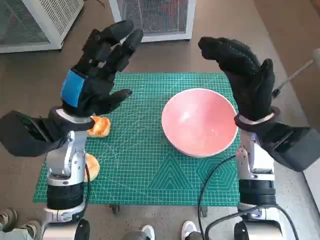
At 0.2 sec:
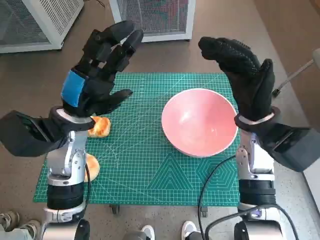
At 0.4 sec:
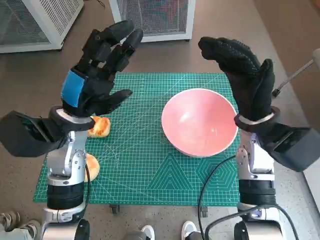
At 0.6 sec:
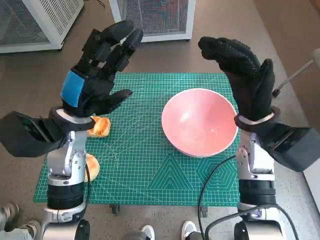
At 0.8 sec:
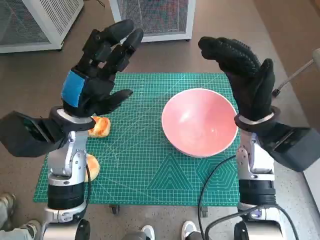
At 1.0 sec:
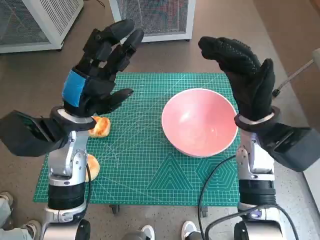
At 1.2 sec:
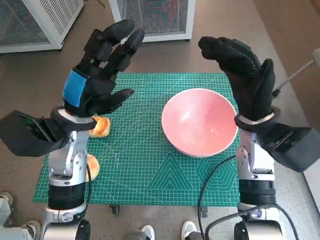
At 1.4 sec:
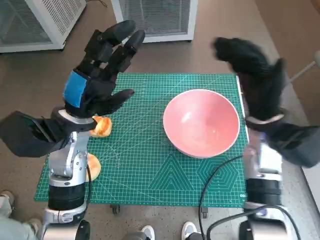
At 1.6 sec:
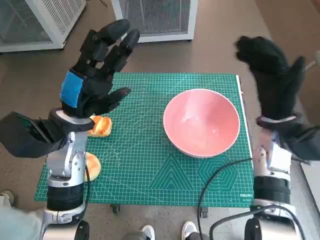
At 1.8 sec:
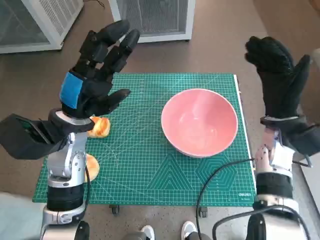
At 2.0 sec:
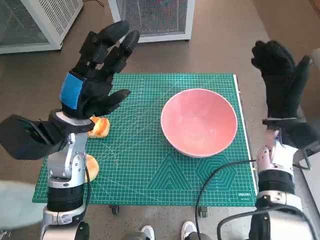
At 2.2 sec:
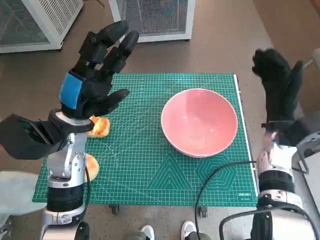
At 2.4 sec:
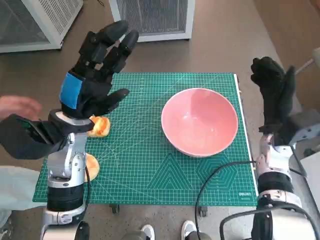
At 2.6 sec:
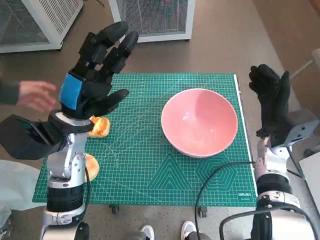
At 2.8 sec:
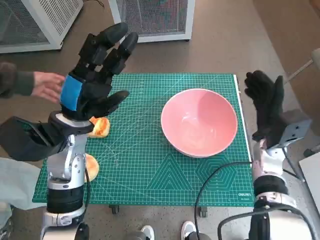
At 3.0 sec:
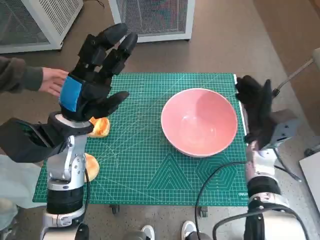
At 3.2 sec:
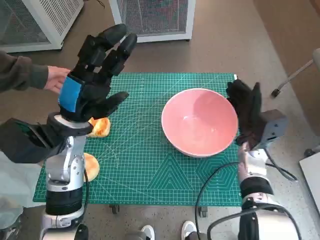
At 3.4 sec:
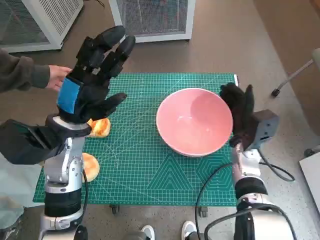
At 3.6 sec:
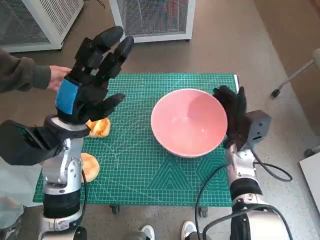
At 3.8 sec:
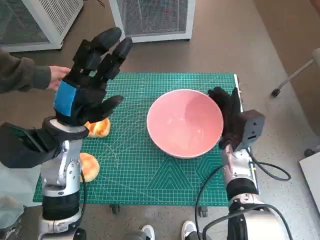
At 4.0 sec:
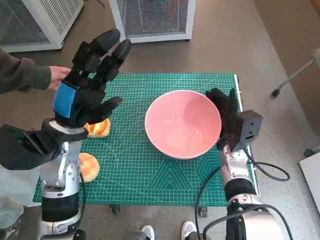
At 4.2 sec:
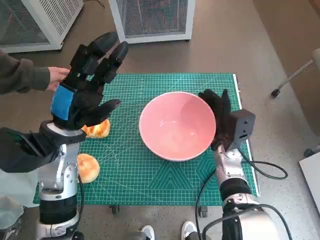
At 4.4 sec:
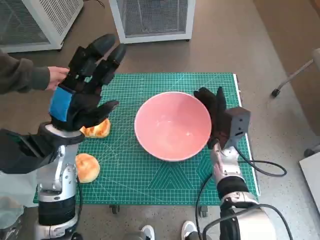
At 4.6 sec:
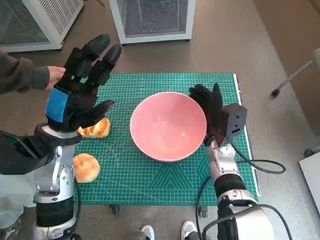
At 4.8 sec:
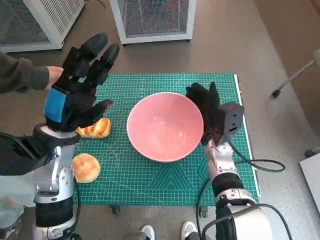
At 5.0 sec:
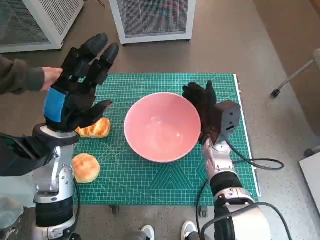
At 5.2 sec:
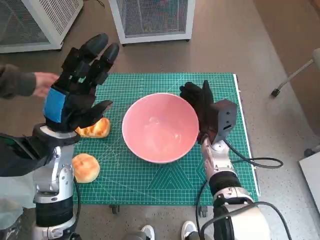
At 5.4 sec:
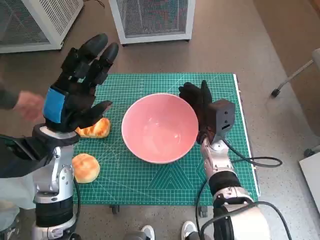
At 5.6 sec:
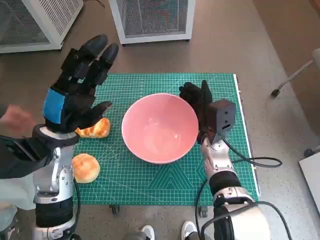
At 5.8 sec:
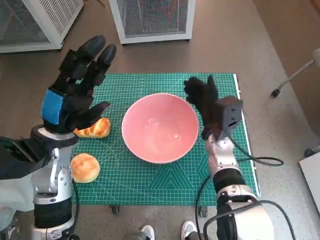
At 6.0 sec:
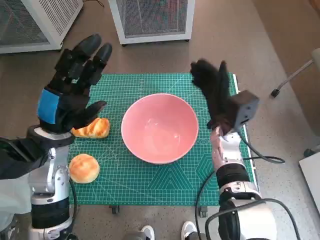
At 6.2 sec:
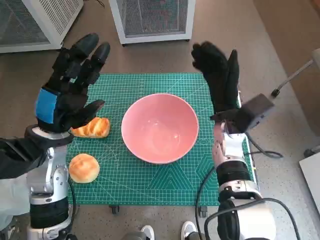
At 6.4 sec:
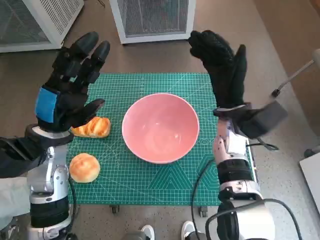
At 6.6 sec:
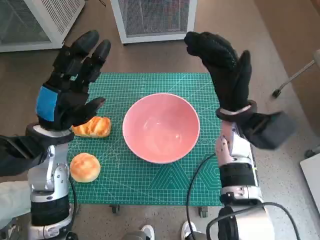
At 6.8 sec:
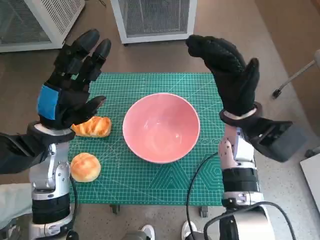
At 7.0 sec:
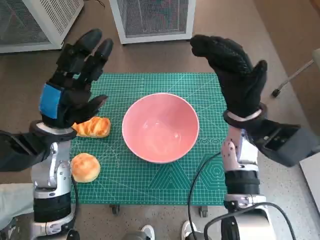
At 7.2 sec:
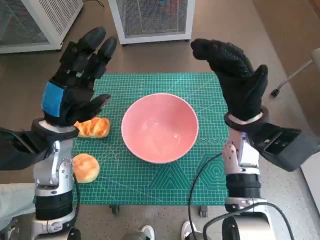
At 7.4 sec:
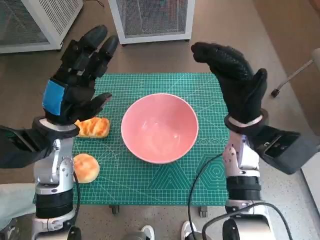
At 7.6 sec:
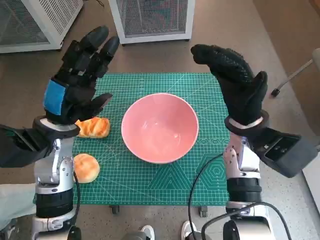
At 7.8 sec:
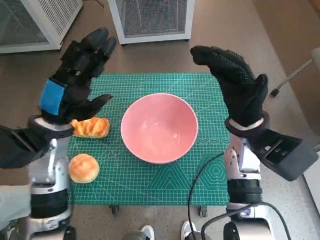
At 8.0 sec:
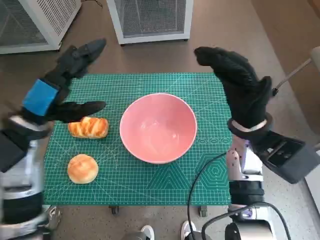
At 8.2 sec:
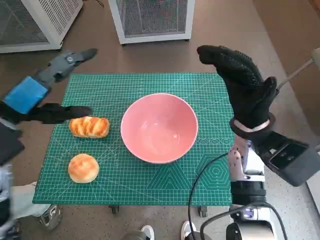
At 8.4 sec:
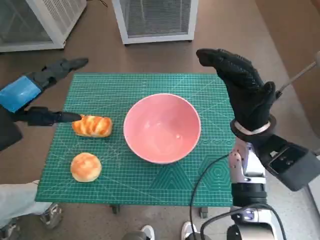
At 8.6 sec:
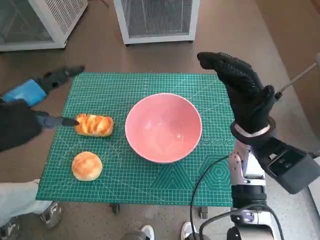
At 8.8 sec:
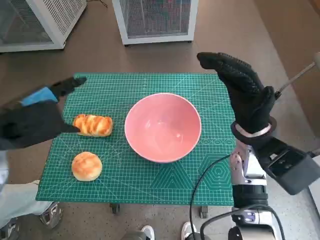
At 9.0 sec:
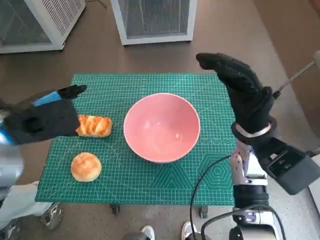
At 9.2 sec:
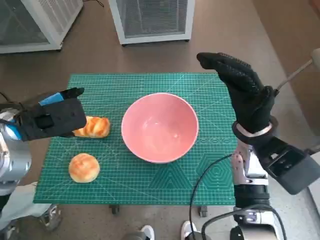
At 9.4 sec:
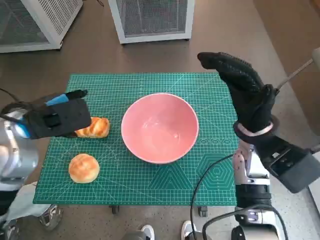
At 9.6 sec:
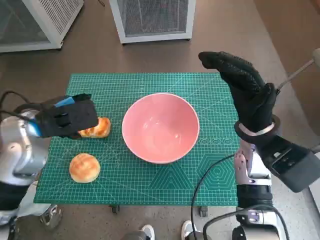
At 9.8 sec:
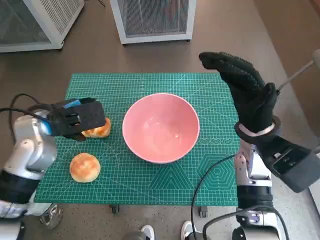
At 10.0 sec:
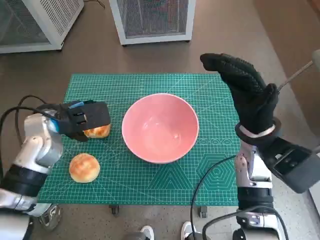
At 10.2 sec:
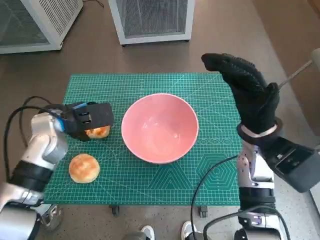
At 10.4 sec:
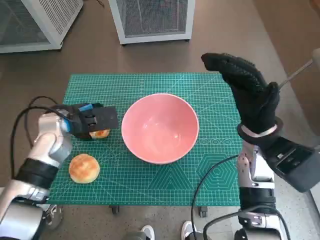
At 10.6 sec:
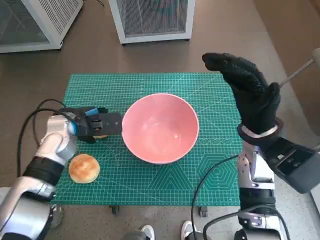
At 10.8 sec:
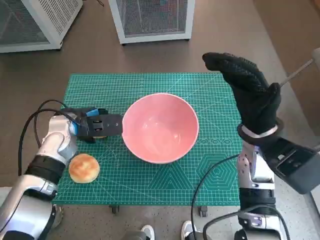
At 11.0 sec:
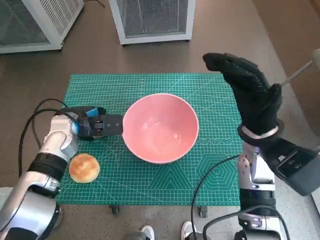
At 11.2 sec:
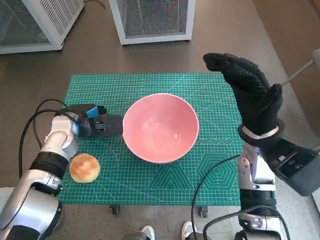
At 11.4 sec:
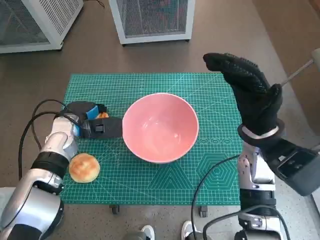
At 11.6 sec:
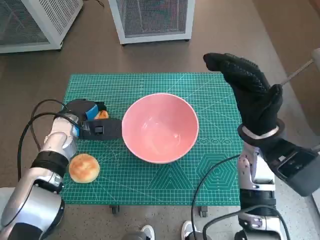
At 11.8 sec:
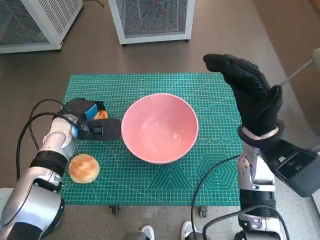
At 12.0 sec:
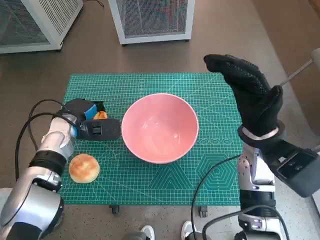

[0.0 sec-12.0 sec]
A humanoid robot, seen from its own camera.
Task of the whole recording: Push the bowl into the center of the table and put the bread into the bowl.
Step, 0.0 sec to 5.8 sec: Move the pink bowl to the center of table with right hand.
Step, 6.0 sec to 11.2 sec: Grasp the long bread with left hand.
1.6 sec to 3.0 sec: The right hand is displaced downward by roughly 10 cm.
3.0 sec to 4.4 sec: The right hand goes some 10 cm to the left.
6.0 sec to 7.6 sec: The right hand heads upward, covering about 5 cm.
7.6 sec to 9.0 sec: The left hand travels upward by some 5 cm.
9.0 sec to 10.4 sec: The left hand is displaced downward and forward by some 10 cm.
10.4 sec to 12.0 sec: The hands make only small movements.

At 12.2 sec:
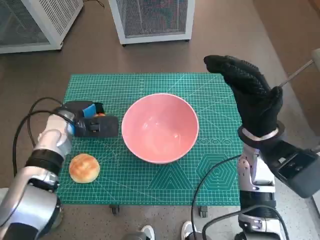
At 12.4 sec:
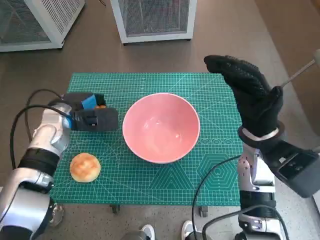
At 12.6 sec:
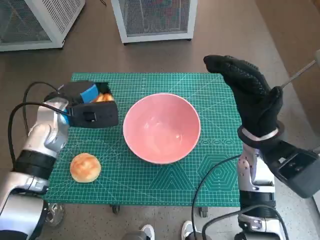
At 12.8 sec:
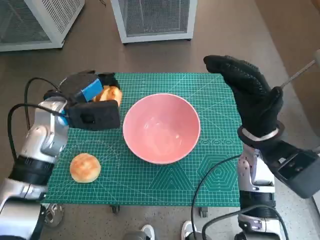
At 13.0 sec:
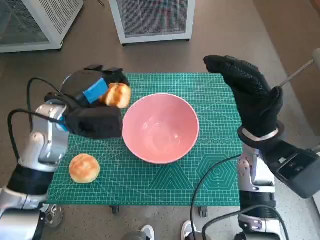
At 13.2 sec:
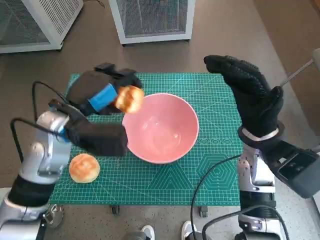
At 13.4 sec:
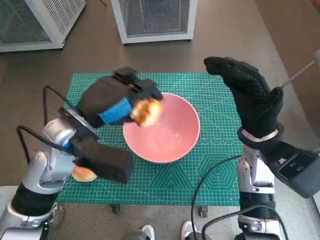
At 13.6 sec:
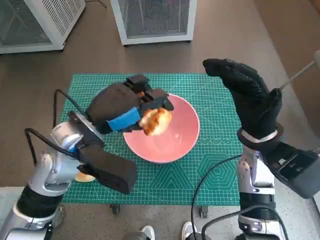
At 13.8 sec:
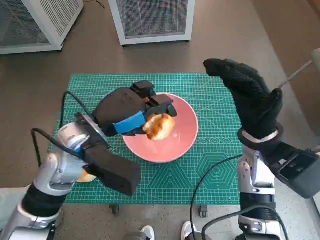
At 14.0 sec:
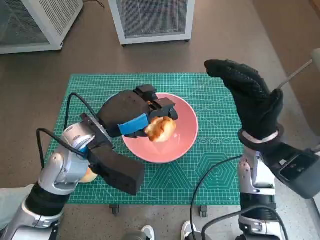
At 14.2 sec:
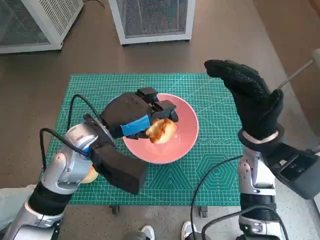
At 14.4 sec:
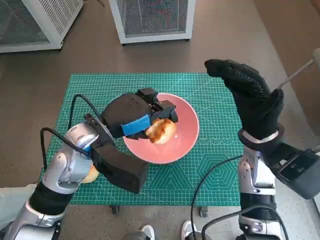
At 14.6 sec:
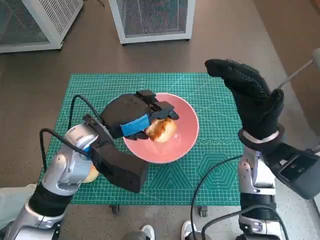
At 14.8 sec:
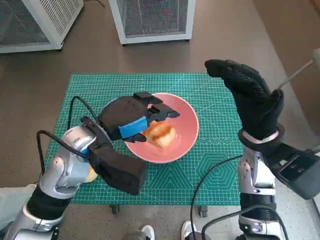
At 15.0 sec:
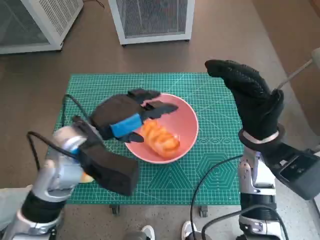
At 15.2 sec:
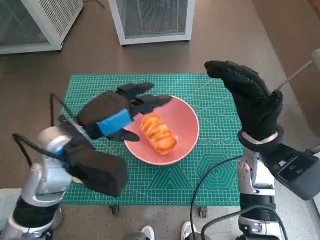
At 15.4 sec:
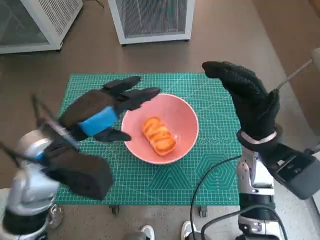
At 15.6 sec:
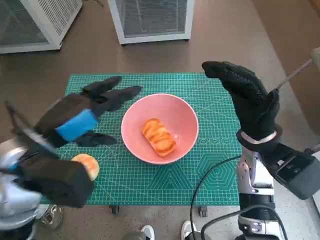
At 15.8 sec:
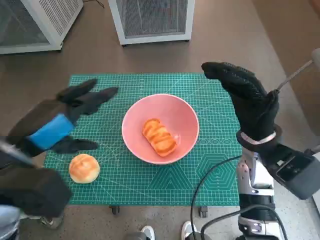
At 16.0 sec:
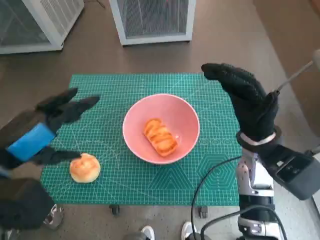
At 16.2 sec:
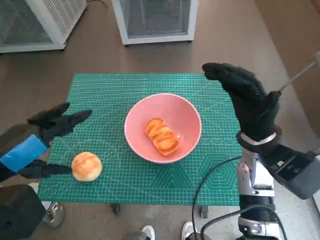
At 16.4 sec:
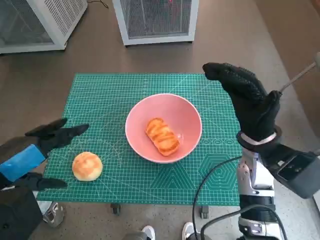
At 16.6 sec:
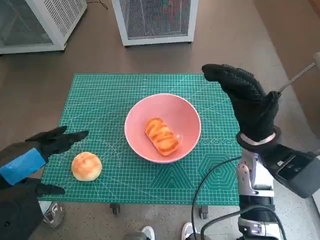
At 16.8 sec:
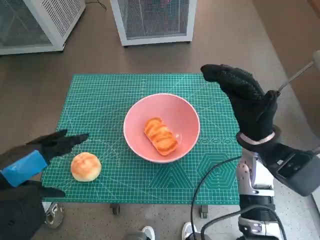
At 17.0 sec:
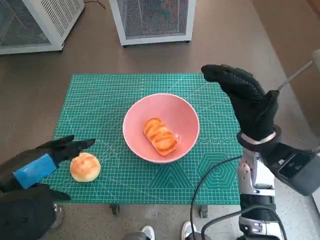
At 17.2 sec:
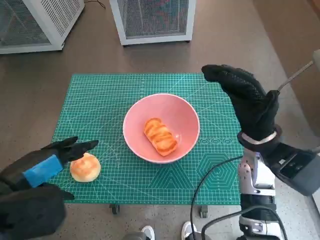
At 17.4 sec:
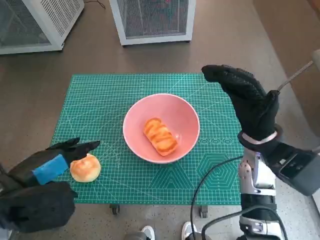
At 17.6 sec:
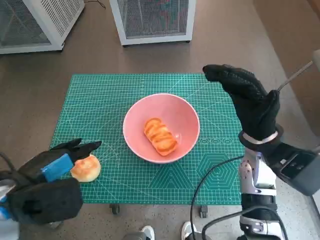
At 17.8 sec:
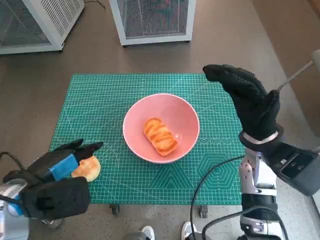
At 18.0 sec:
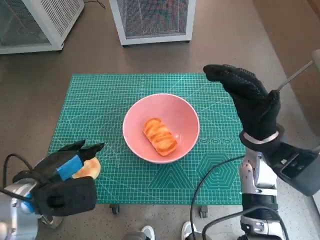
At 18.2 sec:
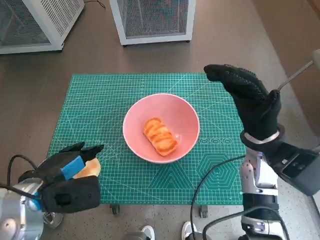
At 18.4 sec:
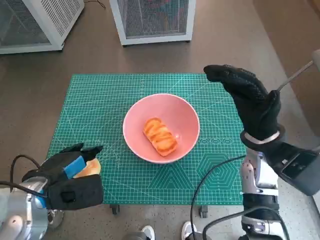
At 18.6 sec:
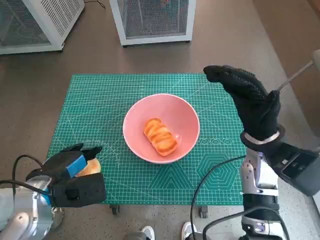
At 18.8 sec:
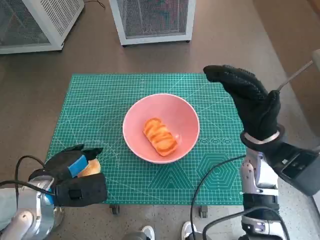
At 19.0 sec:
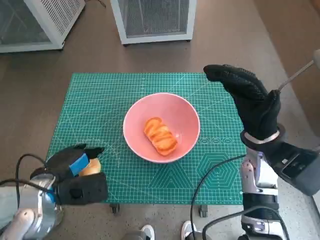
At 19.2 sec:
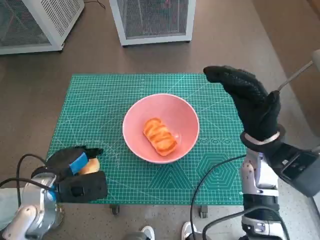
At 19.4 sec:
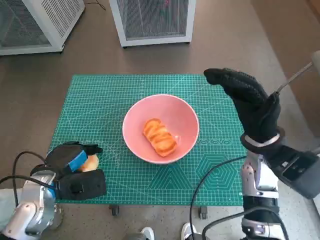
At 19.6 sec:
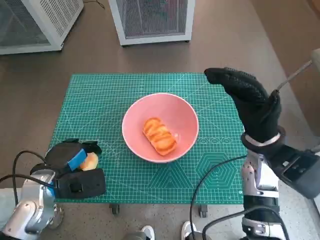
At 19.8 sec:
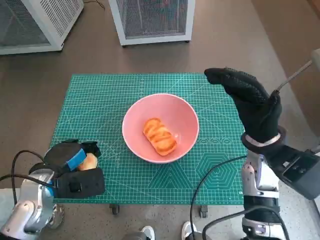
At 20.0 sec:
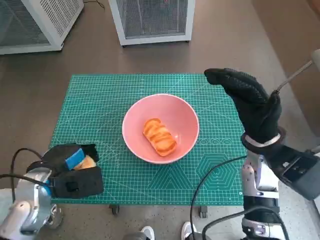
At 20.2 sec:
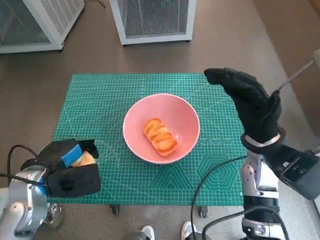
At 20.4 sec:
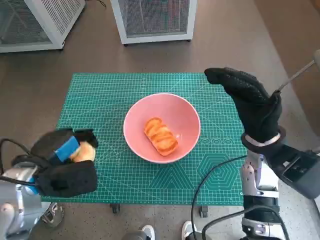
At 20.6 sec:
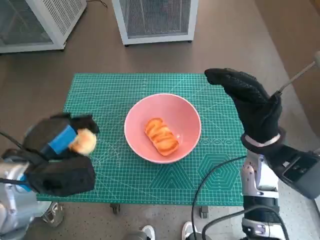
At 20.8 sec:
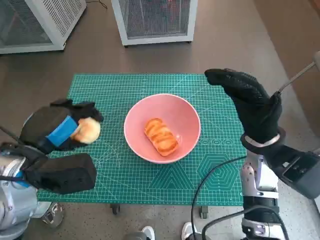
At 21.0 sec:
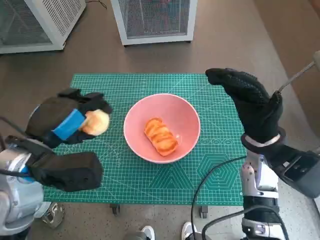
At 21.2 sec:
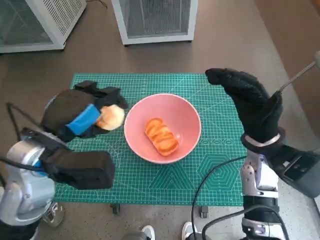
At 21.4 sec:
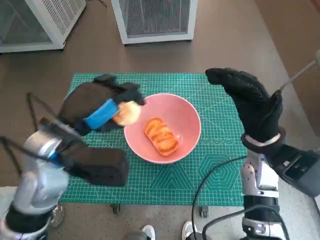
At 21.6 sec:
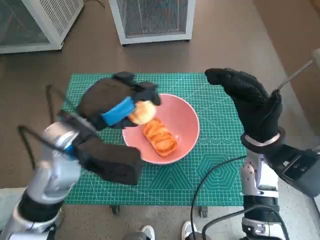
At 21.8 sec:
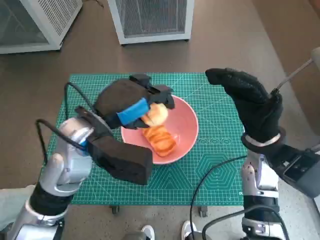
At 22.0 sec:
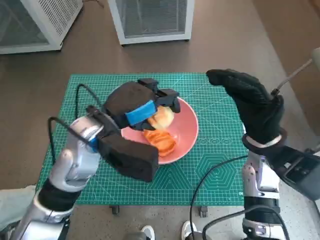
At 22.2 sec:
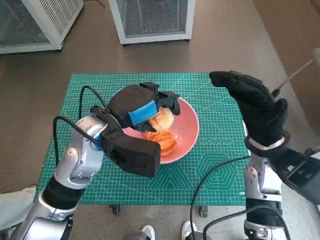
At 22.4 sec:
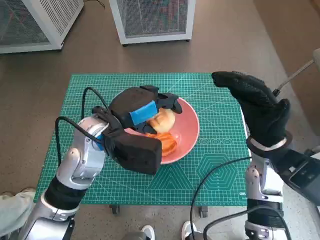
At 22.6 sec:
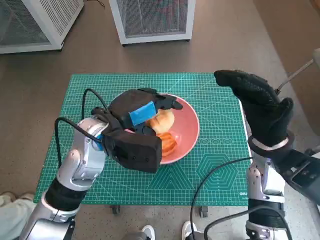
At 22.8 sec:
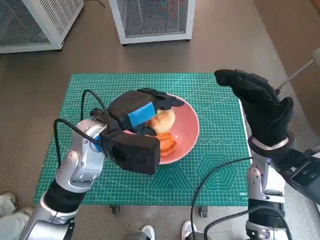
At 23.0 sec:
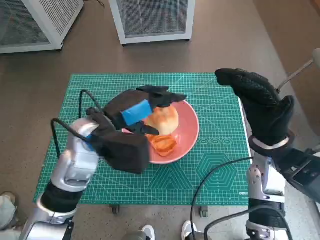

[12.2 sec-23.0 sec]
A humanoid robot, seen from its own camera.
Task of the whole recording: Push the bowl into the center of the table and put the bread into the bowl.
Step, 12.2 sec to 14.8 sec: Place the long bread in pink bowl with left hand.
Step, 15.0 sec to 19.4 sec: Grasp the round bread with left hand.
12.2 sec to 13.8 sec: The left hand is displaced upward, to the right and backward by roughly 15 cm.
13.8 sec to 15.2 sec: The hands make only small movements.
15.2 sec to 16.8 sec: The left hand shifts about 15 cm backward and to the left.
16.8 sec to 18.4 sec: The left hand travels downward by roughly 10 cm.
18.4 sec to 20.0 sec: The hands move only a little.
20.0 sec to 21.4 sec: The left hand is displaced upward and to the right by roughly 15 cm.
21.4 sec to 23.0 sec: The left hand ends up approximately 5 cm from where it was.
